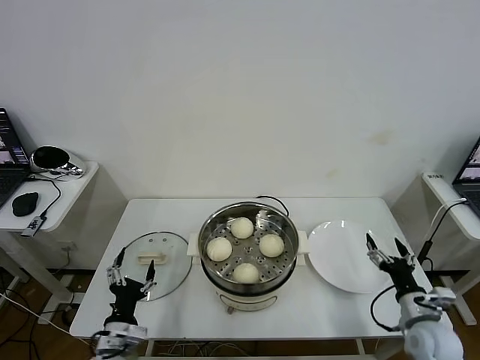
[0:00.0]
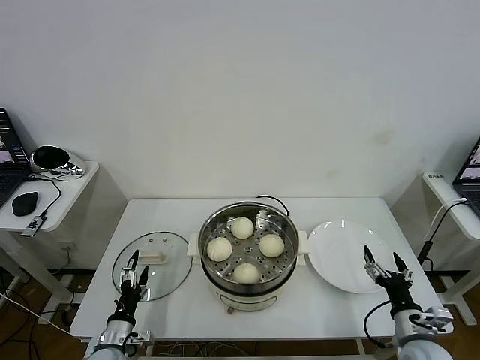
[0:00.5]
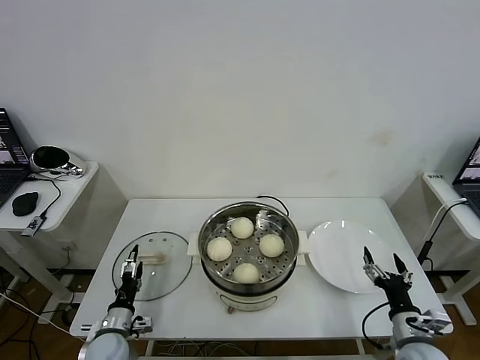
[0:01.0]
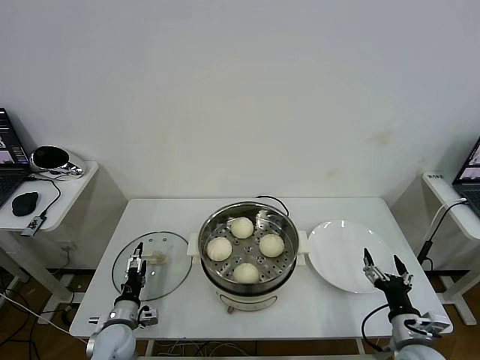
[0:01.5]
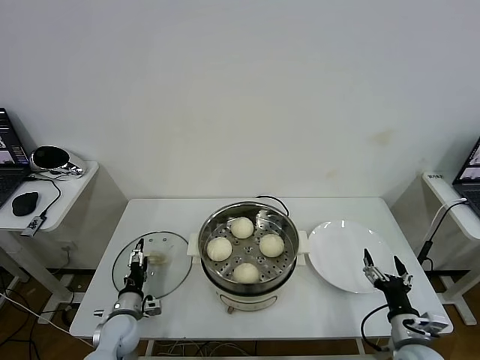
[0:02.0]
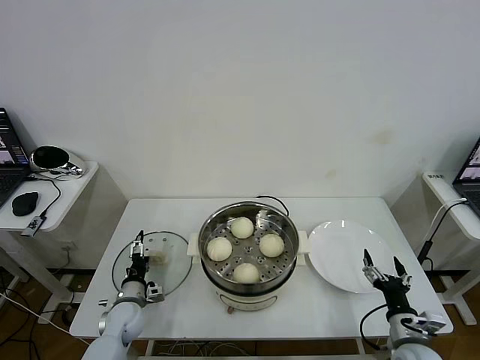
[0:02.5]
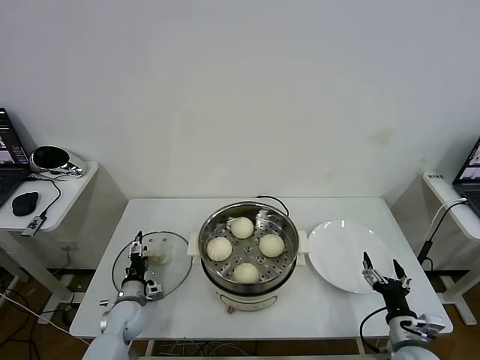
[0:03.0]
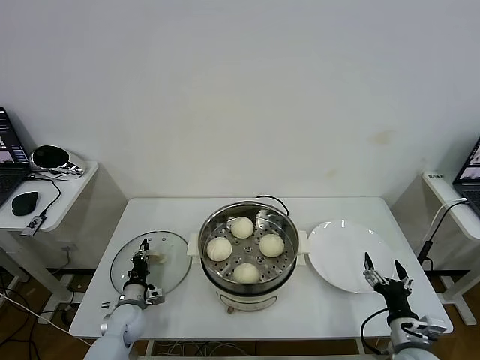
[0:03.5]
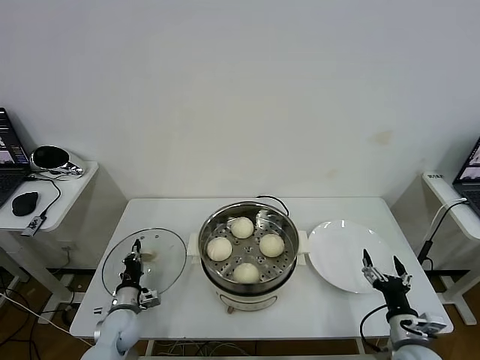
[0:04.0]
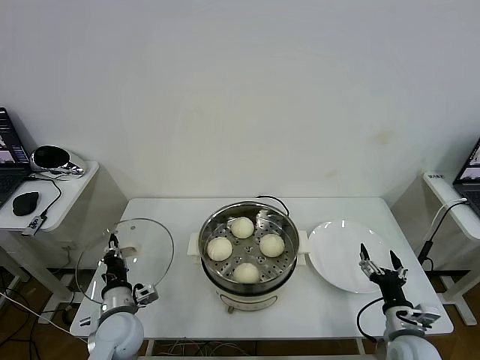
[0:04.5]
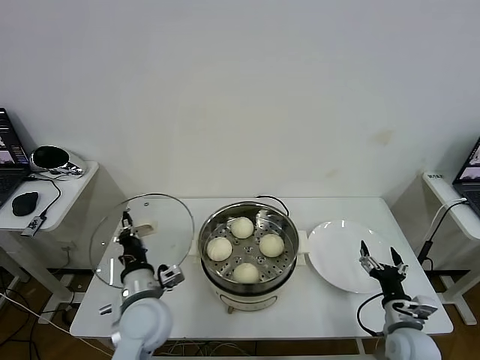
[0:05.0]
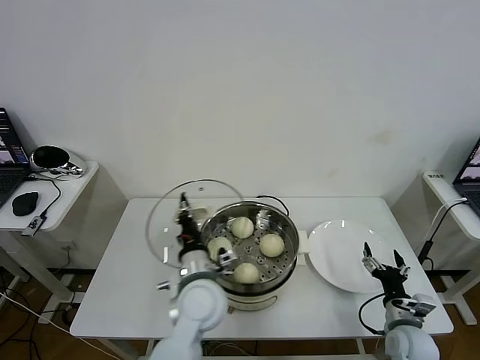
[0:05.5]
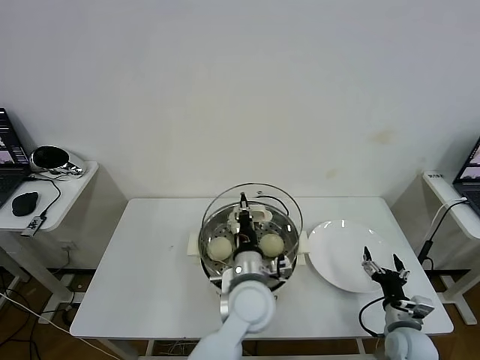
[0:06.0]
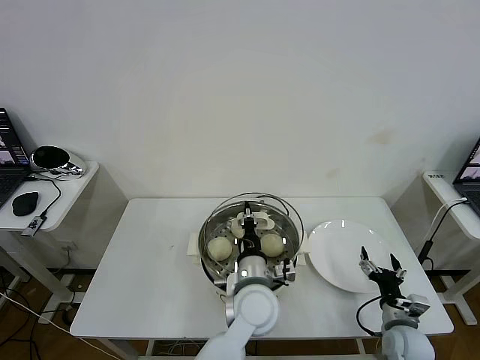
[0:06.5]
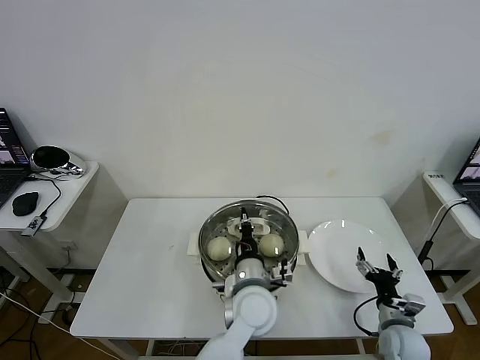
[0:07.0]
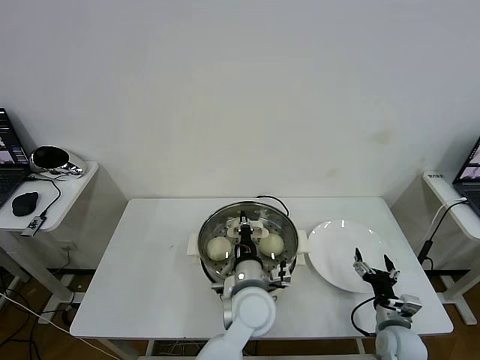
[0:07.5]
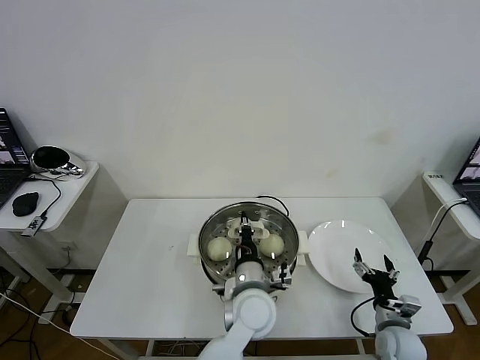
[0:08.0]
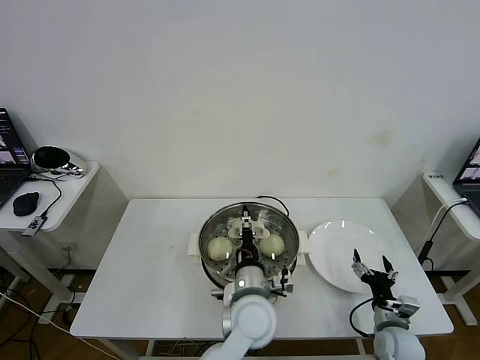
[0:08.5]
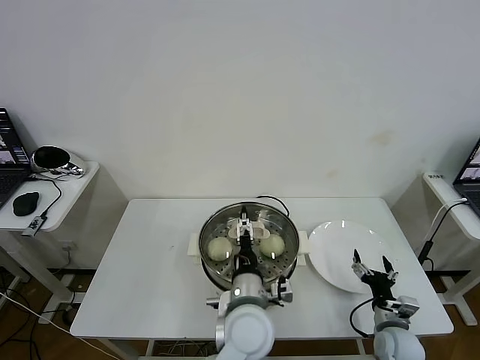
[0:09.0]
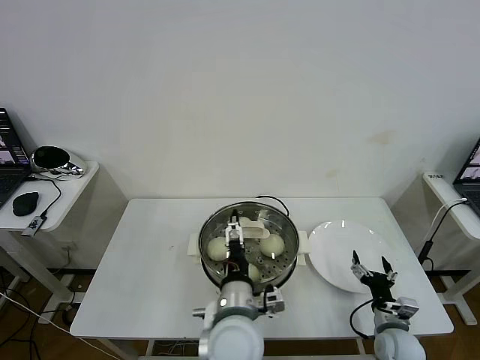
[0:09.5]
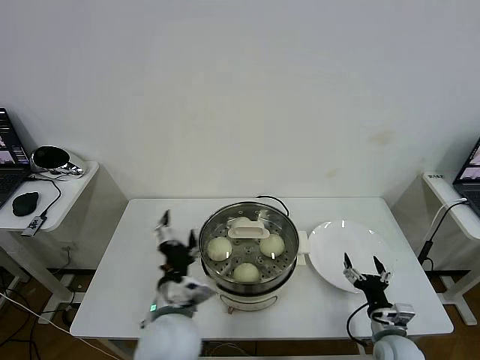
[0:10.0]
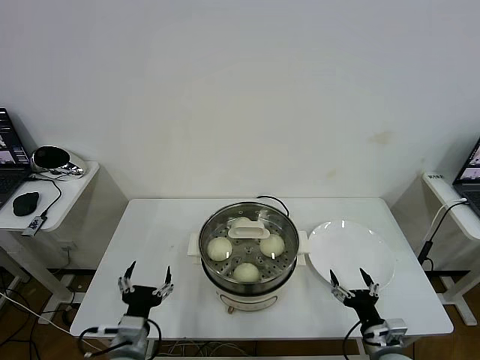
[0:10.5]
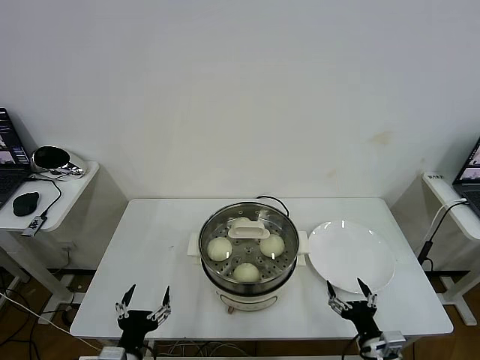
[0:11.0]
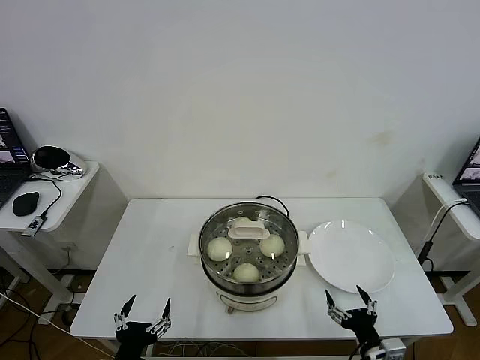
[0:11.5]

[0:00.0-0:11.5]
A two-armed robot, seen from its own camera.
Task of the whole recording: take steamed baozi put them in steamer then cover it.
Step, 0:00.0 to 0:03.5: Grasp the pot lid with left gripper.
Step, 0:04.0 to 0:09.0: Place the pot lid on the steamer with left gripper.
0:00.0 to 0:02.0: The left gripper heads forward and downward, covering some 15 cm; the right gripper shifts by some 5 cm.
0:02.0 to 0:04.0: The left gripper closes its fingers.
0:04.0 to 0:06.0: The left gripper travels to the right and upward by roughly 40 cm. Meanwhile the right gripper ends up some 5 cm from where it was.
0:06.0 to 0:07.5: The grippers make only small movements.
0:07.5 to 0:09.5: The left gripper moves backward, some 5 cm, and opens.
0:09.5 to 0:11.5: The left gripper goes some 25 cm to the left and backward, while the right gripper goes roughly 10 cm backward.
